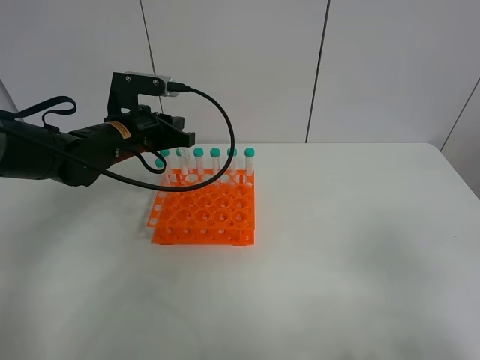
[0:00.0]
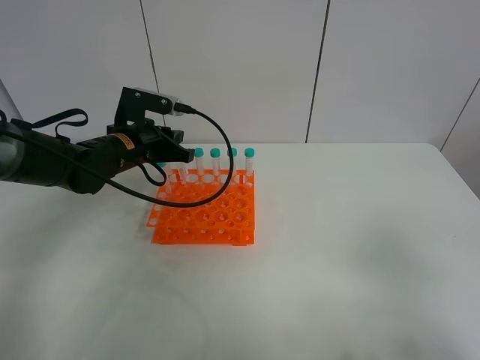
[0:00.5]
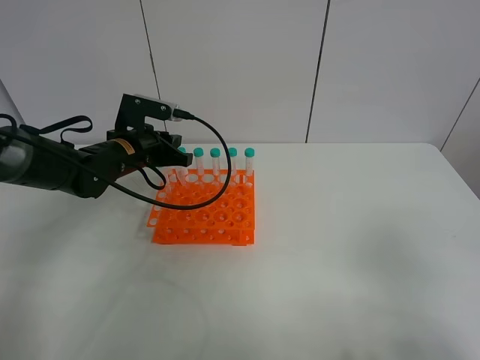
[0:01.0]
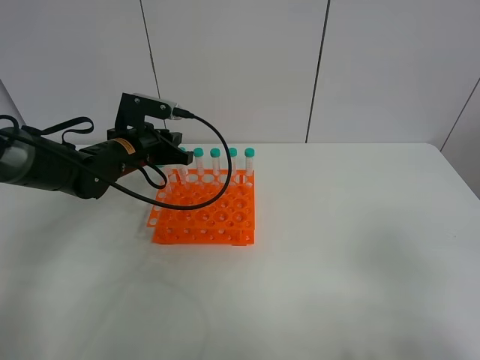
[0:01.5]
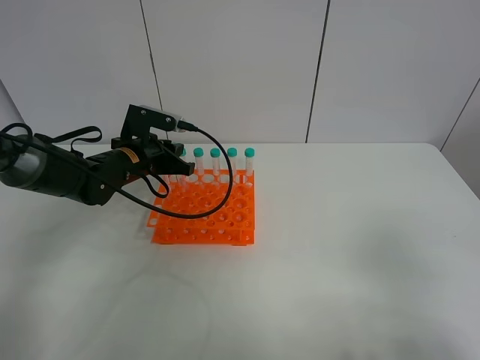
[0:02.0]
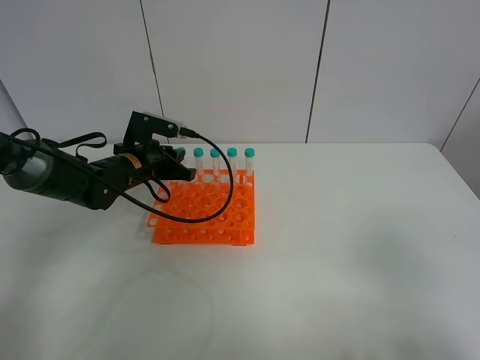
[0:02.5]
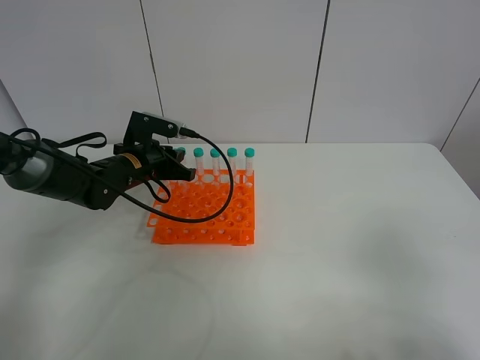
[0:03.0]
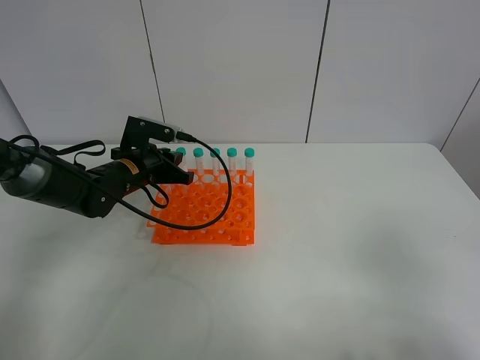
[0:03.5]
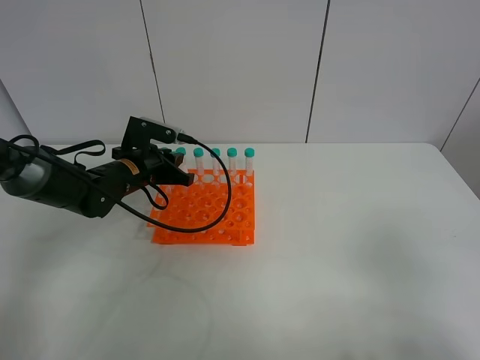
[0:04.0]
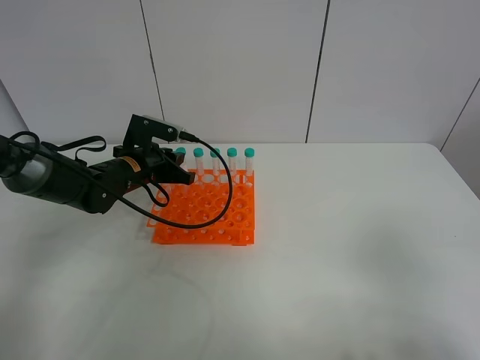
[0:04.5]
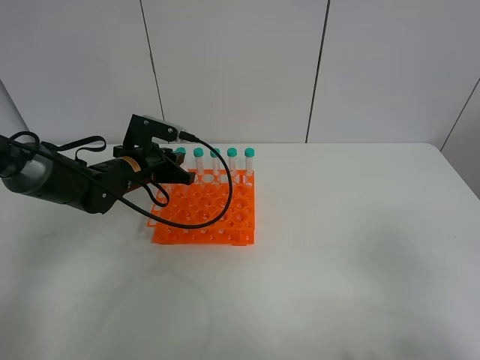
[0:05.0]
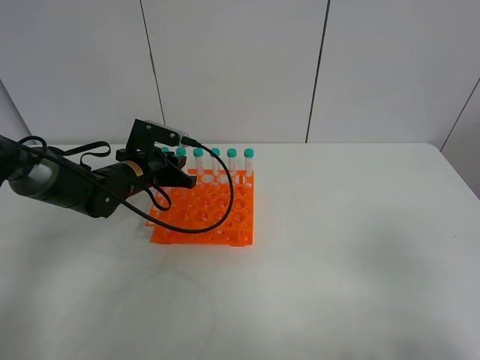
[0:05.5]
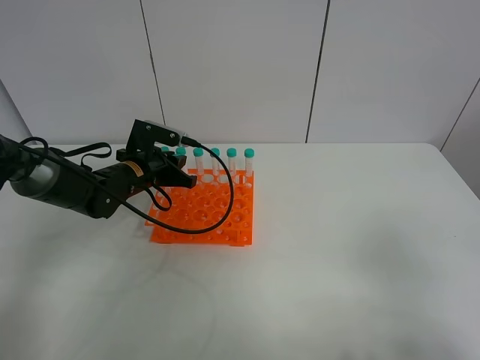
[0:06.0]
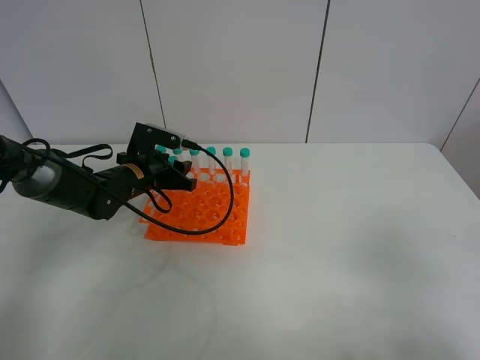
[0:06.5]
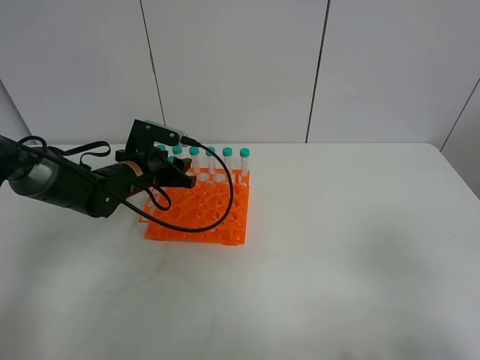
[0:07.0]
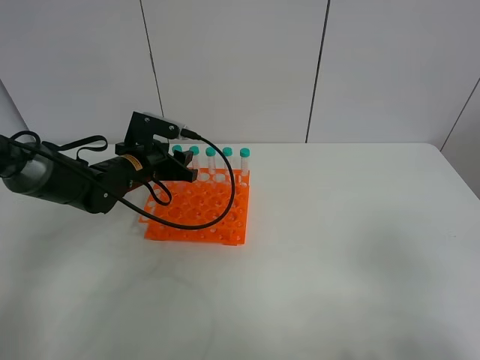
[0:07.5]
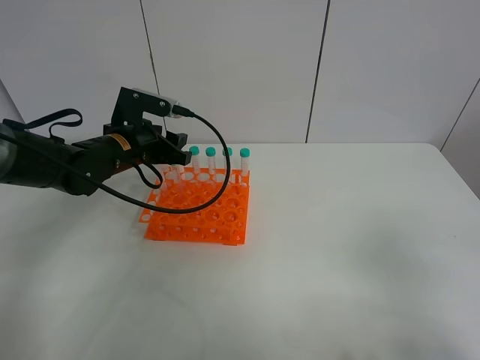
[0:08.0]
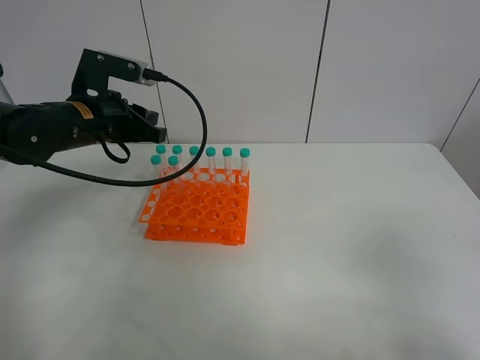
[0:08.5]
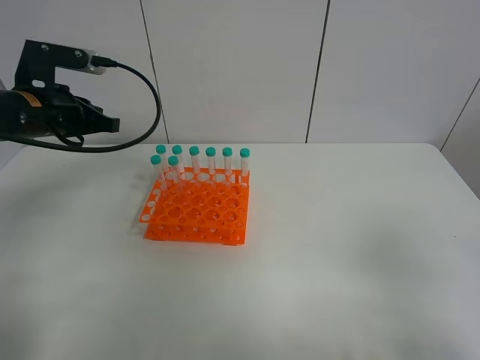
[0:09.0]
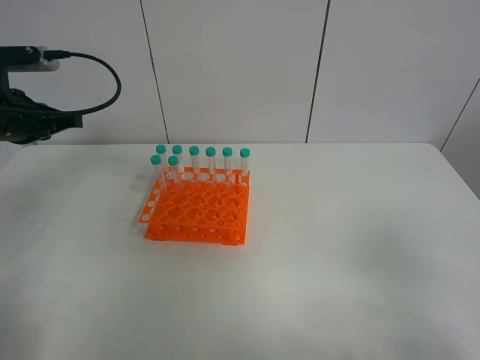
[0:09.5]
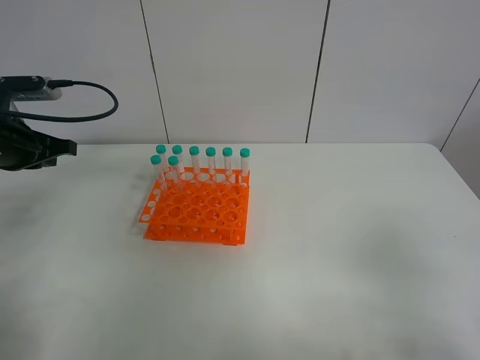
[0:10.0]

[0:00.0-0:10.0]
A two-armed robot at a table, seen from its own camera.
Task of the whole recording: Put the test tube on the table back onto the test tube rack.
Step, 0:00.0 to 0:08.5: Place the test tube on the test tube rack with the left gripper.
0:00.0 to 0:02.0: The left gripper goes some 5 cm downward.
0:02.0 to 0:04.0: The grippers move only a little.
0:04.0 to 0:06.0: Both grippers stay put.
0:06.0 to 0:08.0: The left gripper moves upward, about 5 cm, and opens.
0:08.0 to 0:10.0: The left gripper moves to the left, backward and upward, about 15 cm, and closes.

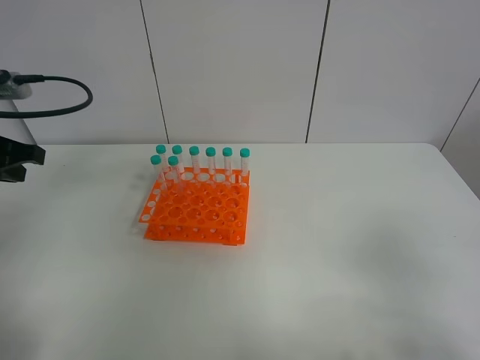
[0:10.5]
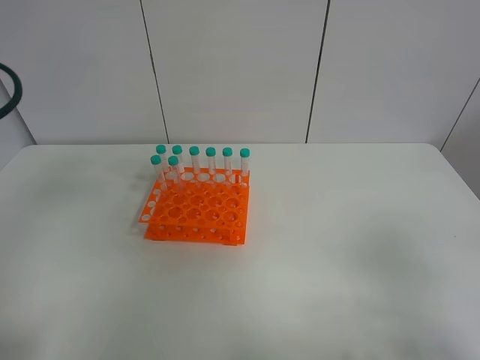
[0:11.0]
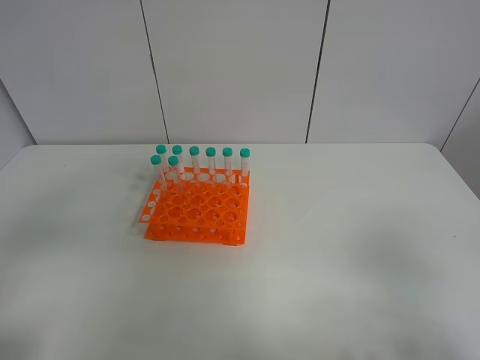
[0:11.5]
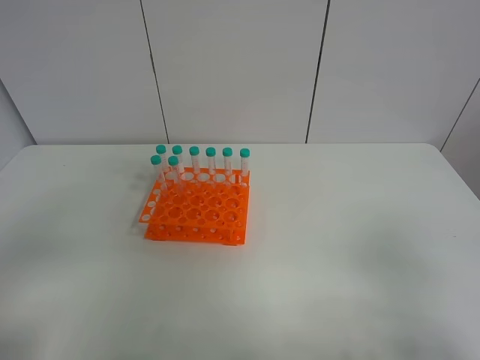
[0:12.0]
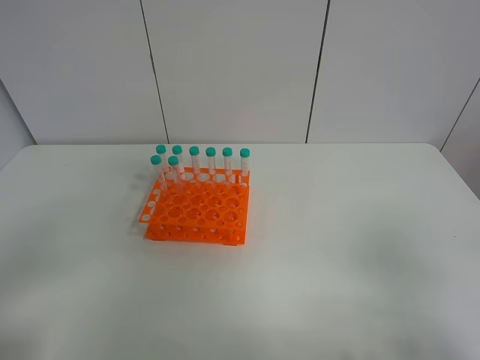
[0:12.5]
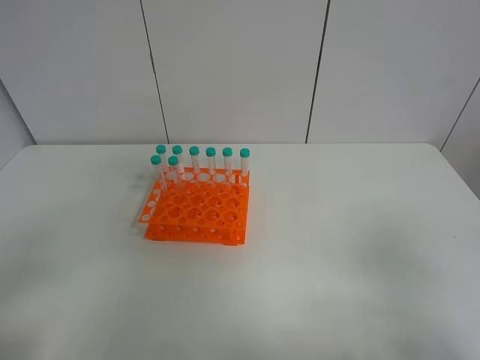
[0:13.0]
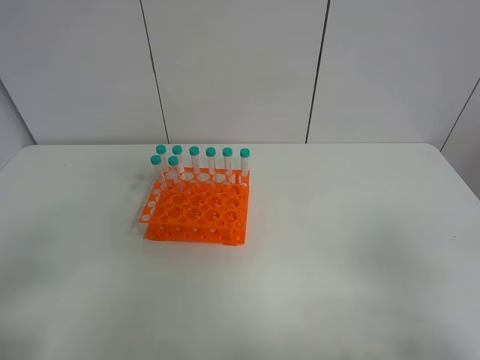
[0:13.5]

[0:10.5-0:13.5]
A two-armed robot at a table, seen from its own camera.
Task of the whole recording: Put the test tube on the table back onto the test tube rack.
0:10.5 to 0:12.0: The left gripper goes some 20 cm backward.

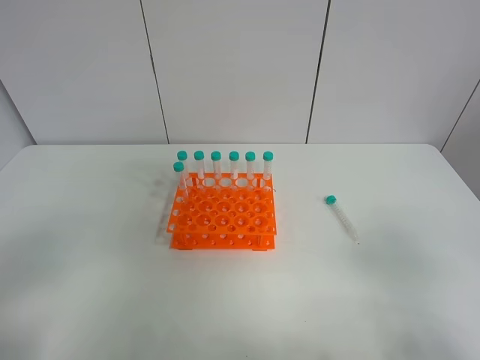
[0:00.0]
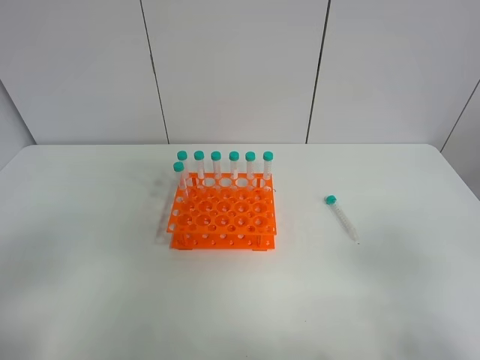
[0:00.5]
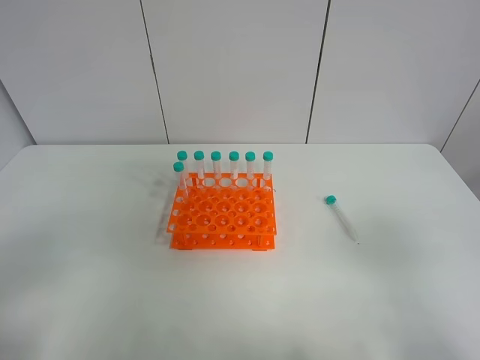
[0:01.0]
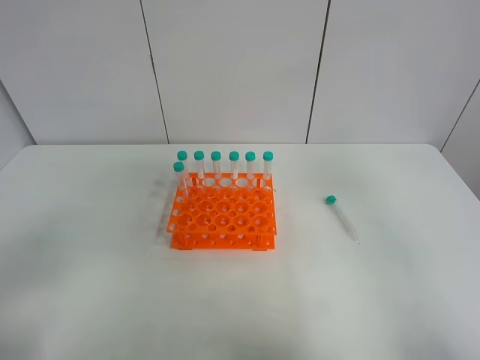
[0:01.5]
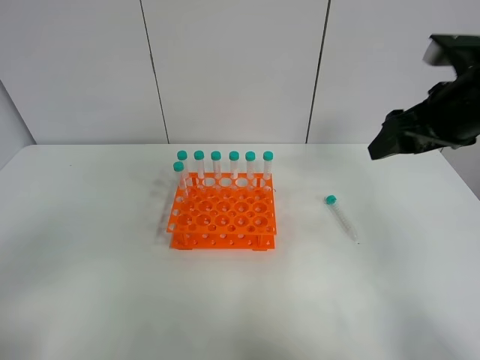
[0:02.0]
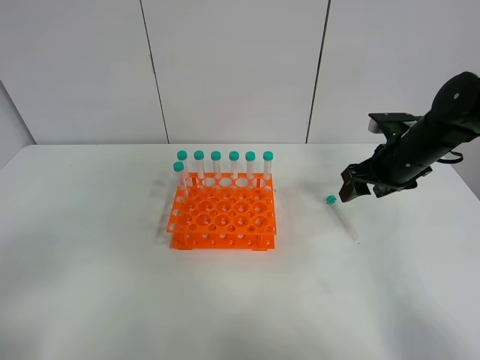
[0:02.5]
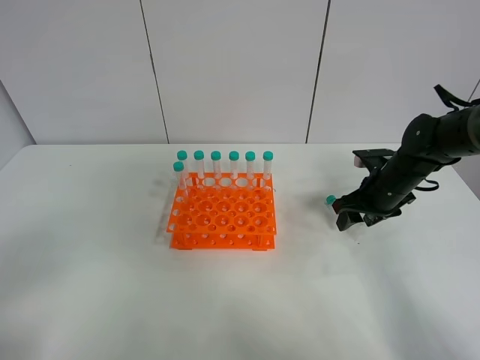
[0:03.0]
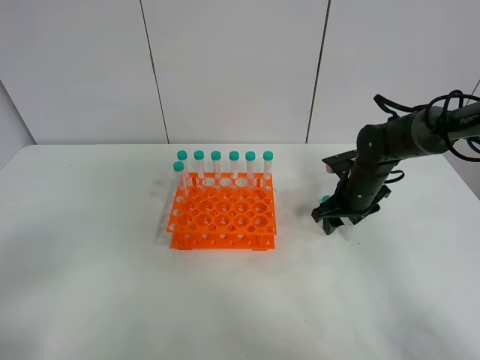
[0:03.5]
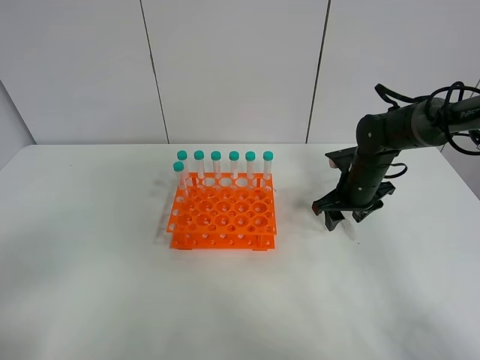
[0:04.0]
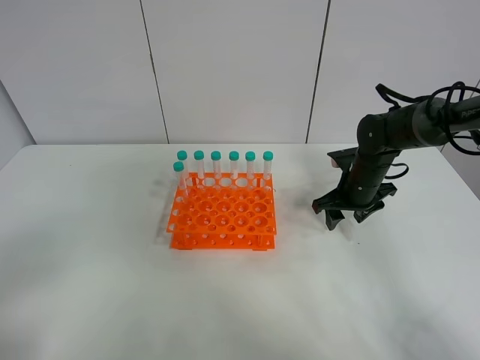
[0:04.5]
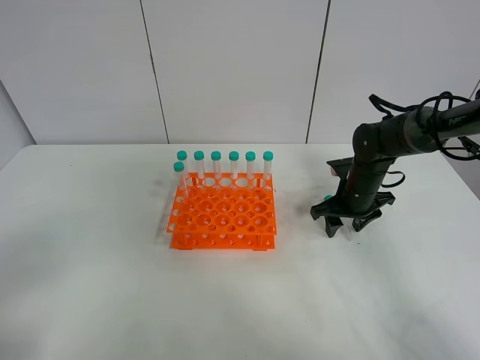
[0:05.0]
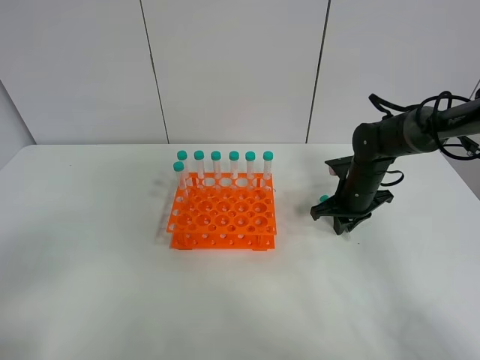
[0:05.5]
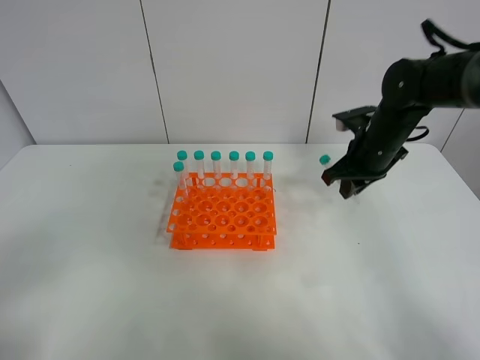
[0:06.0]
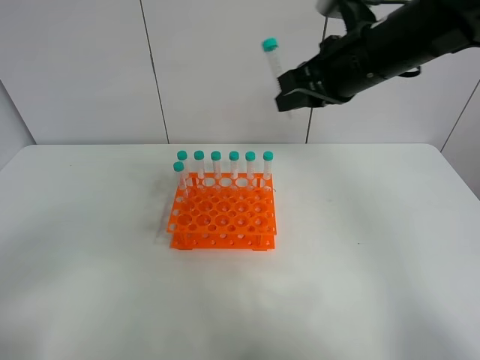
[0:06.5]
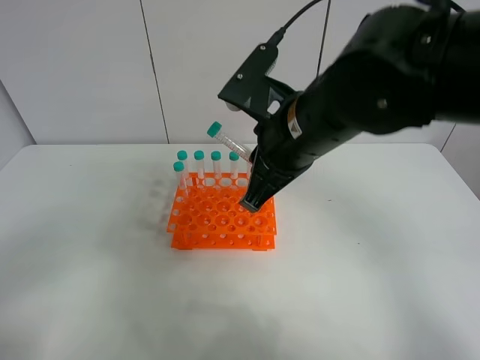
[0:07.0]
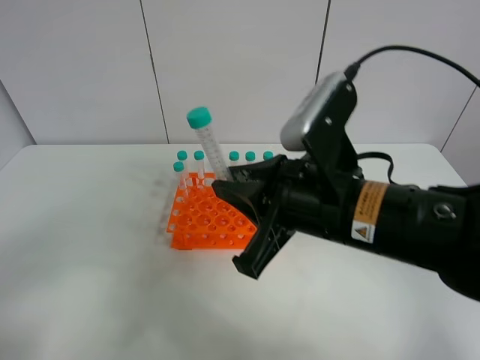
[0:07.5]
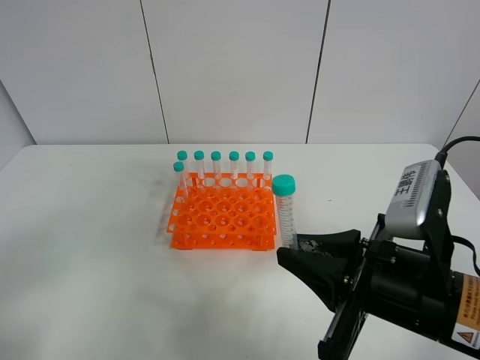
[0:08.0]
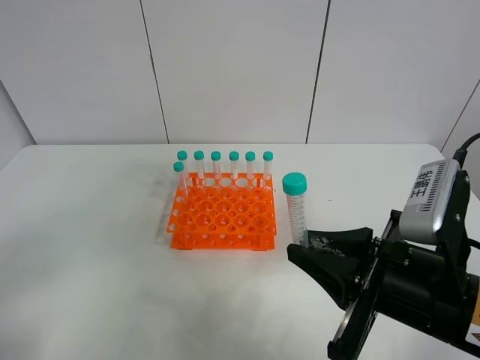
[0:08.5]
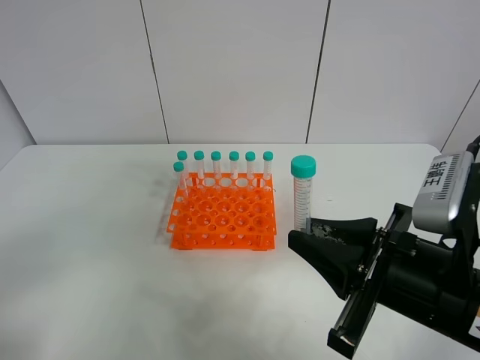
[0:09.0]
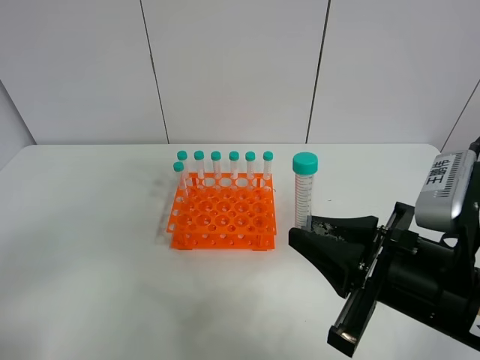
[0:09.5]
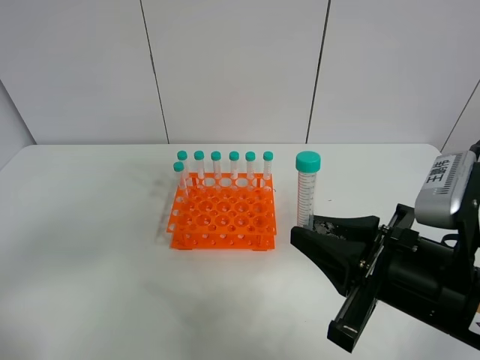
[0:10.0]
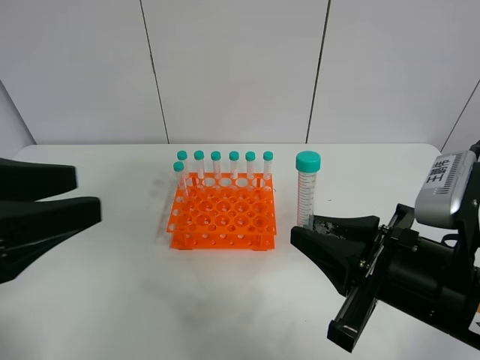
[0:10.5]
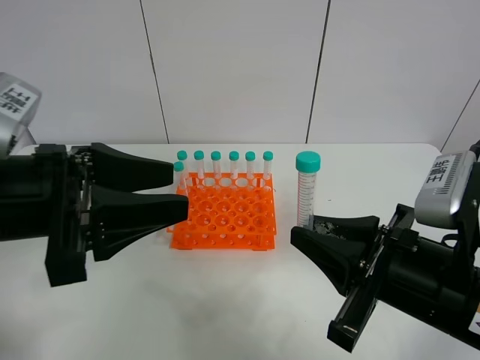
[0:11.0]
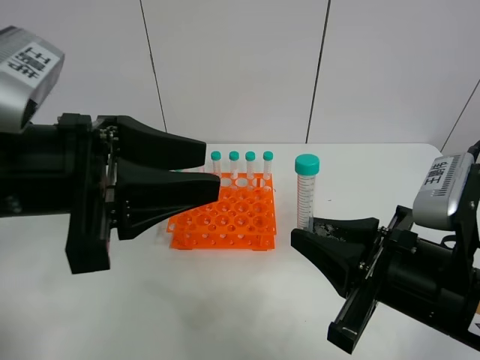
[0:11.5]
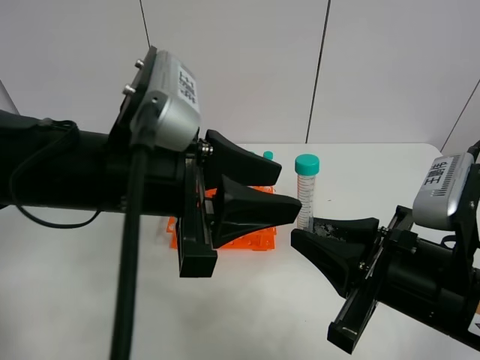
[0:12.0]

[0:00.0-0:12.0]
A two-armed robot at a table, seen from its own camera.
Task of the whole recording: Put the test tube on the table back onto the test tube rack.
Step, 0:00.0 to 0:05.5: Pick up the test tube with the right gripper.
0:00.0 to 0:02.0: The right gripper is displaced forward by some 30 cm.
0:02.0 to 0:04.0: The right gripper travels downward and forward by about 20 cm; the left gripper opens up.
0:04.0 to 0:06.0: The right gripper shifts approximately 10 cm upward, and closes up.
0:06.0 to 0:08.0: The right gripper travels backward by approximately 25 cm.
0:10.0 to 0:12.0: The left gripper moves to the right and forward, approximately 30 cm.
